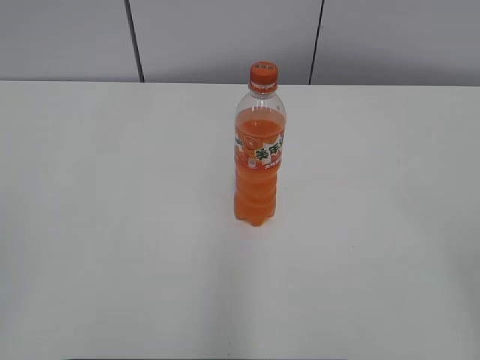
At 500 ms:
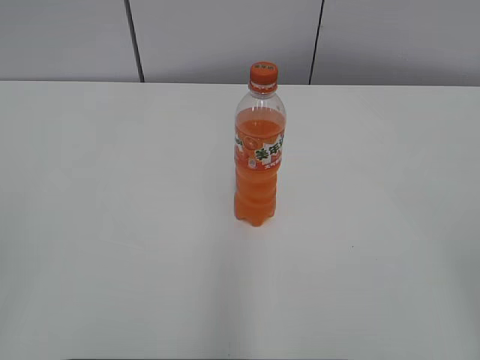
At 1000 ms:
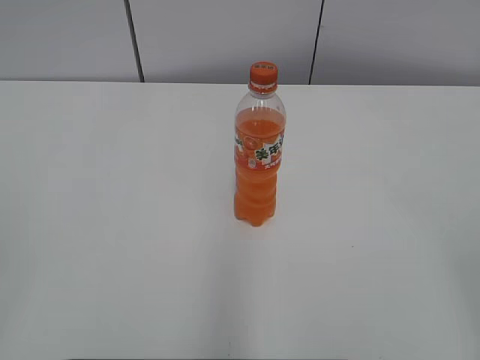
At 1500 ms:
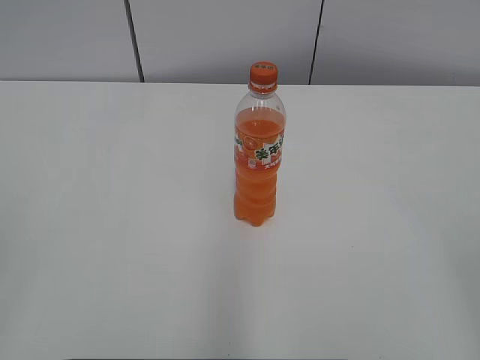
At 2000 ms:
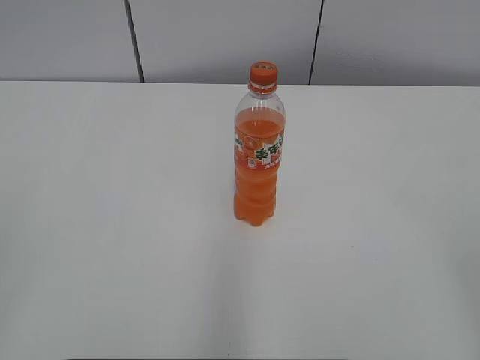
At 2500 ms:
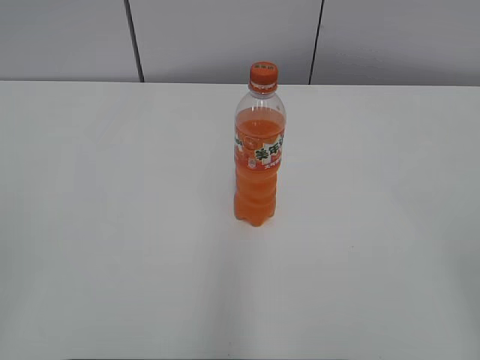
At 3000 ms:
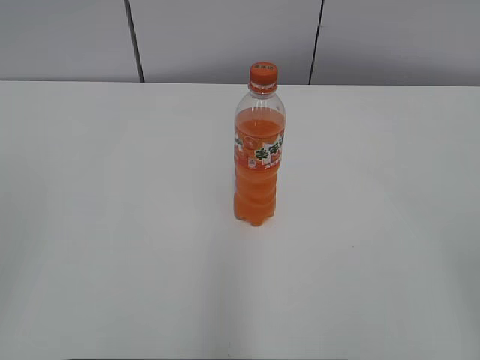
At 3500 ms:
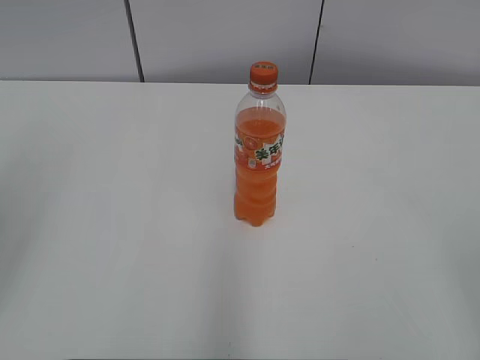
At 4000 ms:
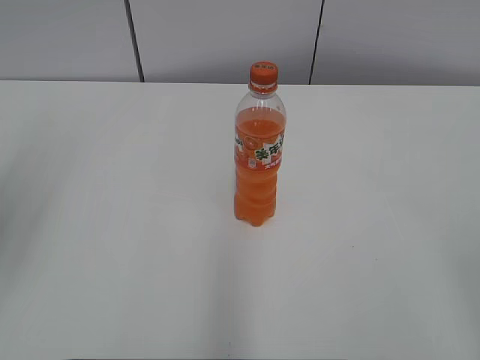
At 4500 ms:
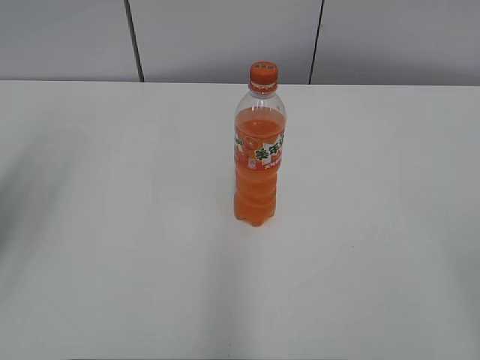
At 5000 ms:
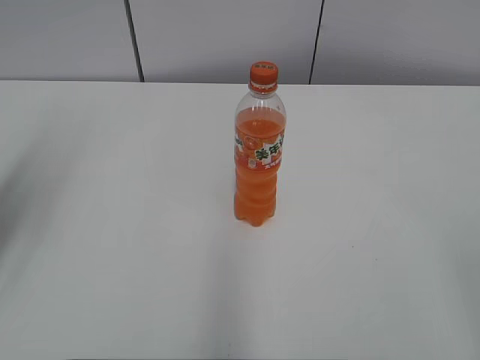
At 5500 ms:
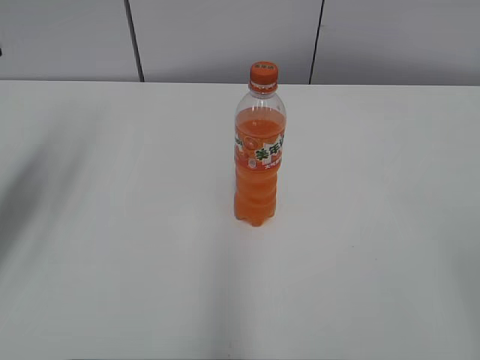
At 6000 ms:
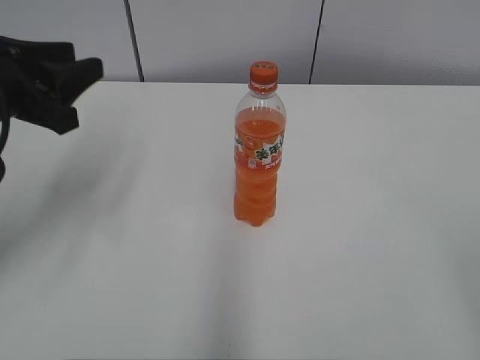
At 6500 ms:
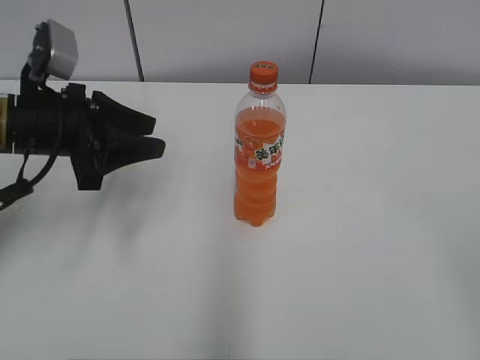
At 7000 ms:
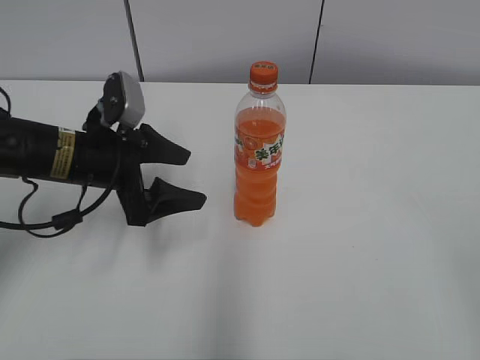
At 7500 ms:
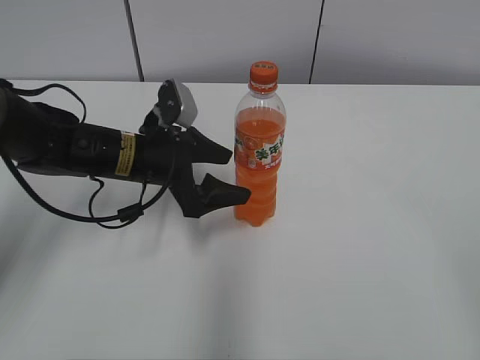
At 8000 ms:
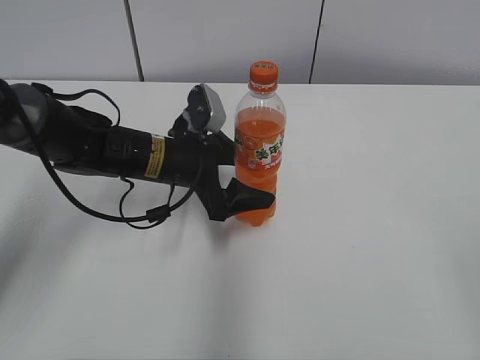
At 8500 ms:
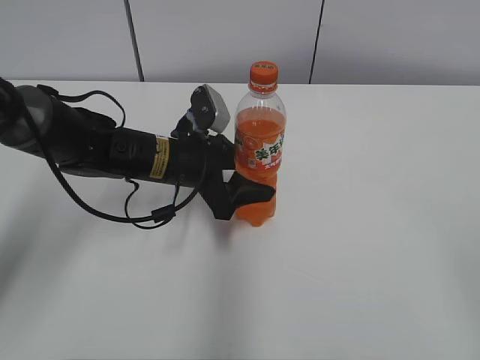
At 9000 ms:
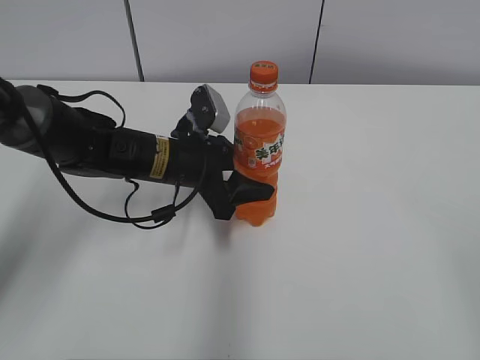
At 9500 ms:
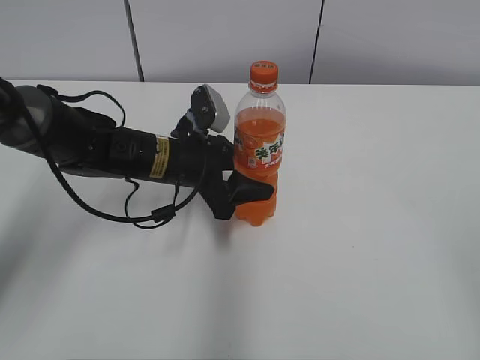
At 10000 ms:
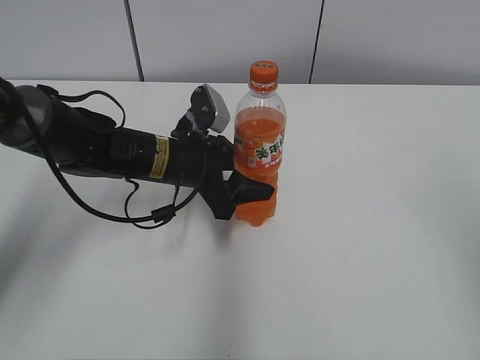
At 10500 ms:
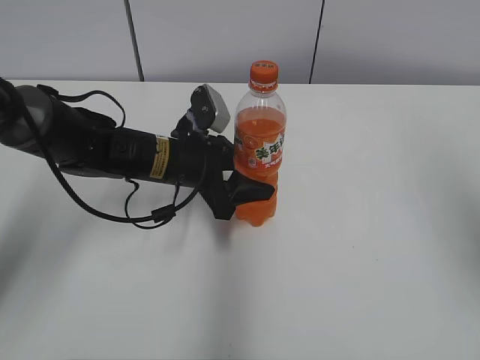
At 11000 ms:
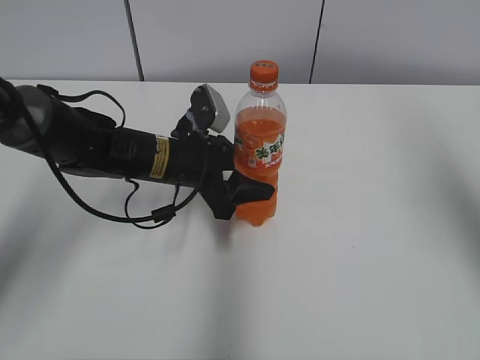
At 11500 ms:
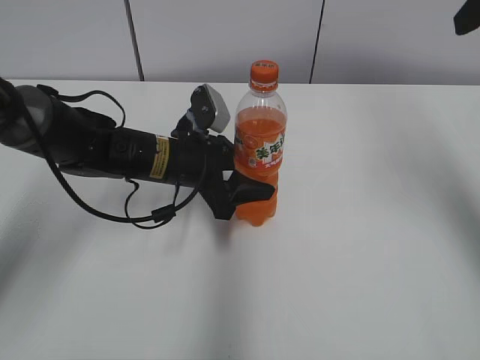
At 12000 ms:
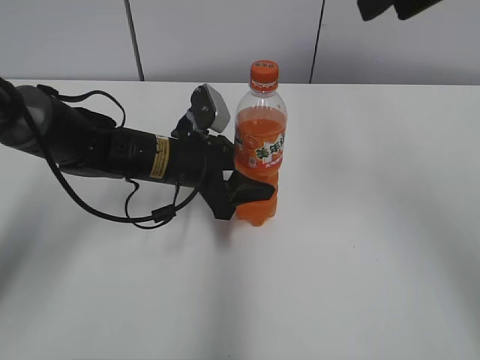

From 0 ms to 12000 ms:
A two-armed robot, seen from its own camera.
Step, from 0 ms to 8500 ms: Grab the Mirinda with the left hand.
From 4000 ms to 6000 ms: The left gripper is displaced forward and downward by roughly 15 cm.
From 6000 ms to 8000 ms: The left gripper travels to the right, downward and forward by approximately 20 cm, and opens.
From 8000 ms to 10000 ms: The left gripper closes its fingers, while the right gripper is displaced forward and upward by some 10 cm, and closes its fingers.
From 10000 ms to 12000 ms: The right gripper travels forward and to the left by approximately 25 cm.

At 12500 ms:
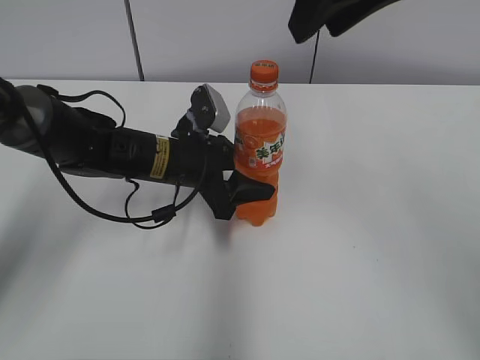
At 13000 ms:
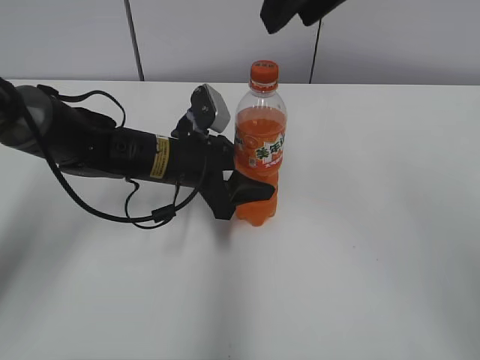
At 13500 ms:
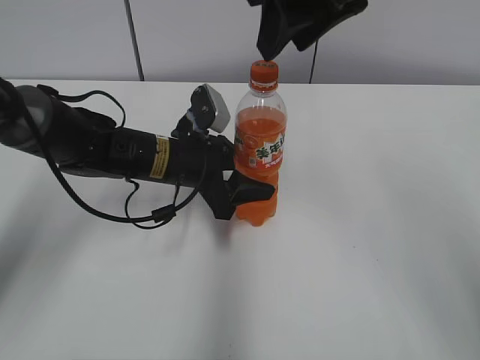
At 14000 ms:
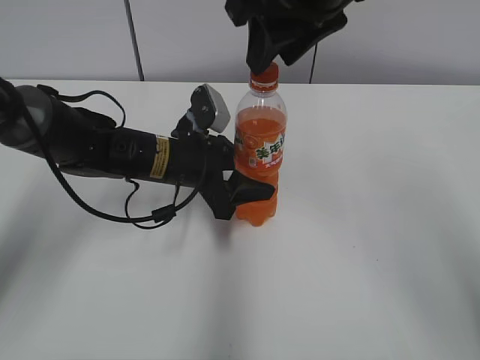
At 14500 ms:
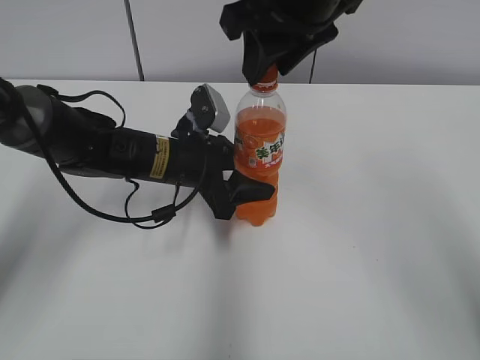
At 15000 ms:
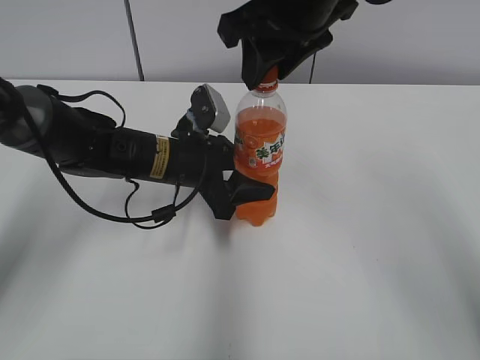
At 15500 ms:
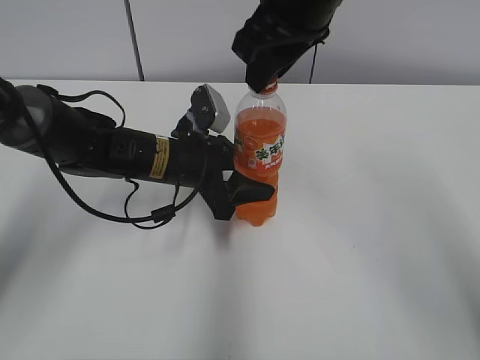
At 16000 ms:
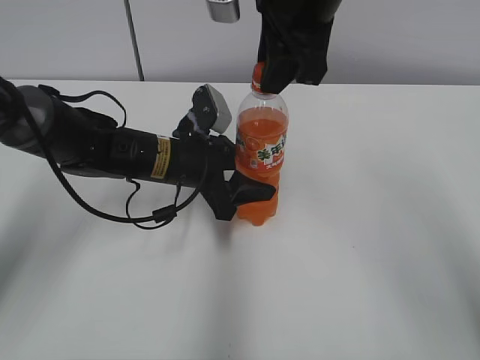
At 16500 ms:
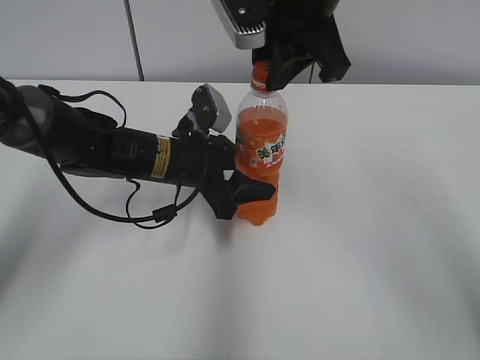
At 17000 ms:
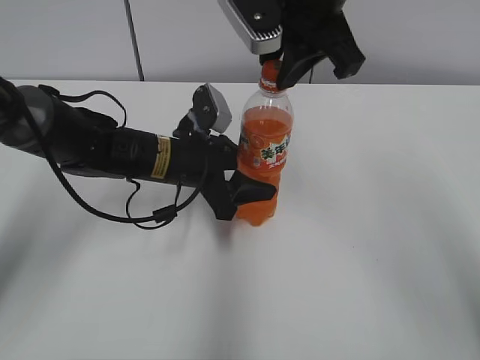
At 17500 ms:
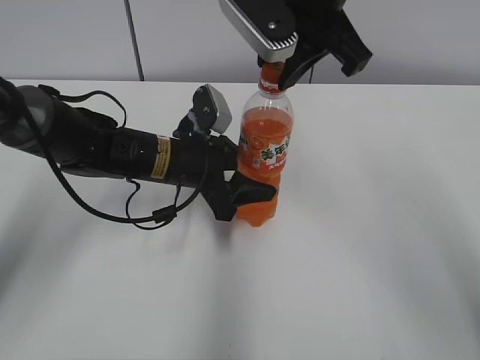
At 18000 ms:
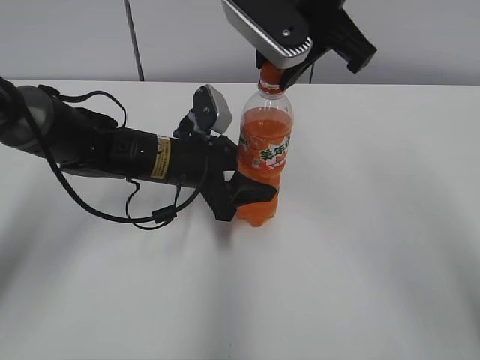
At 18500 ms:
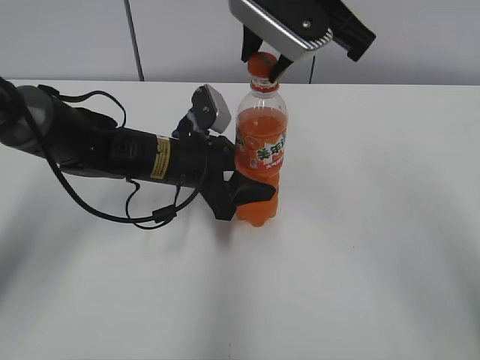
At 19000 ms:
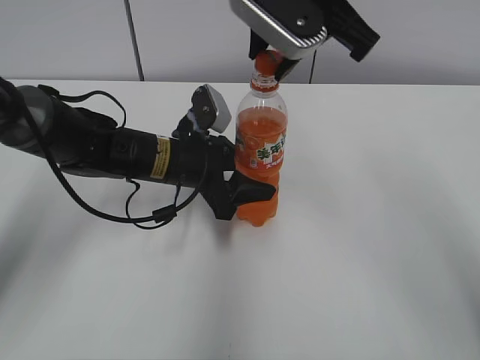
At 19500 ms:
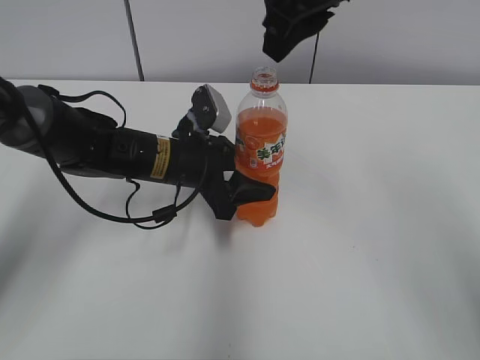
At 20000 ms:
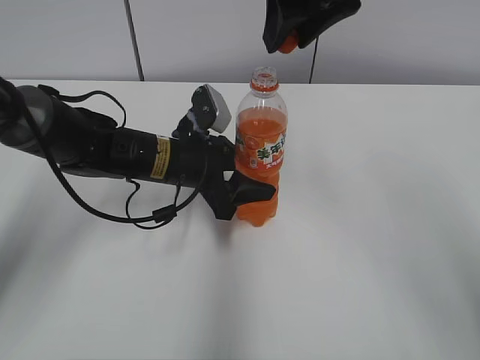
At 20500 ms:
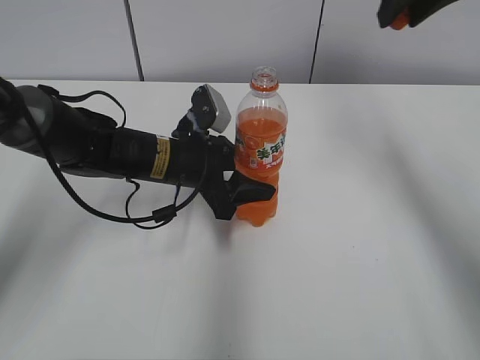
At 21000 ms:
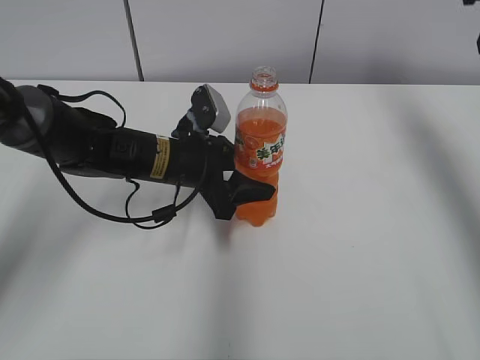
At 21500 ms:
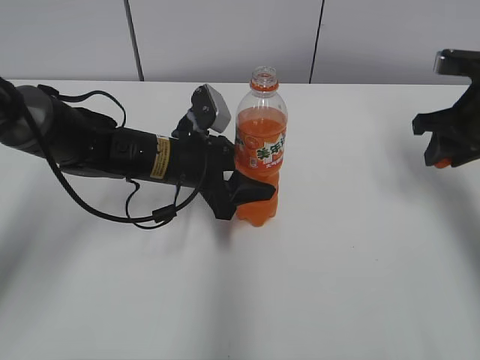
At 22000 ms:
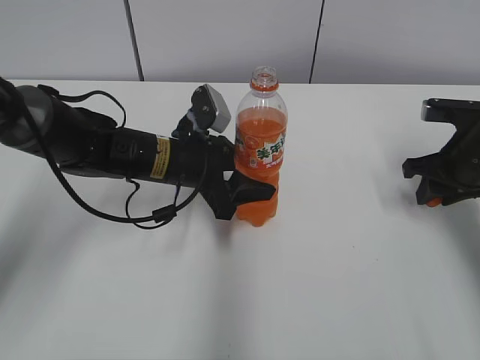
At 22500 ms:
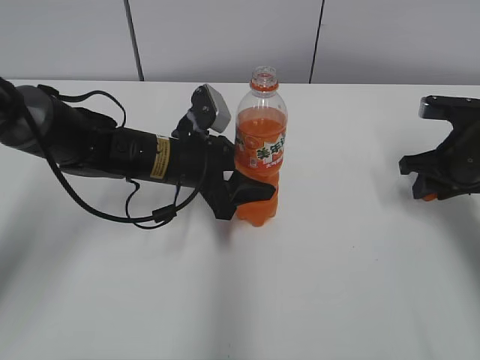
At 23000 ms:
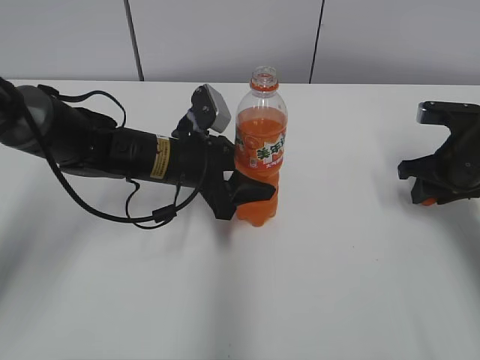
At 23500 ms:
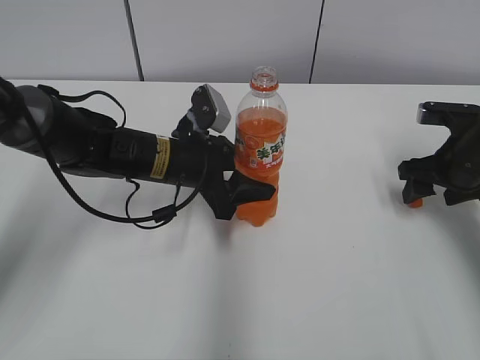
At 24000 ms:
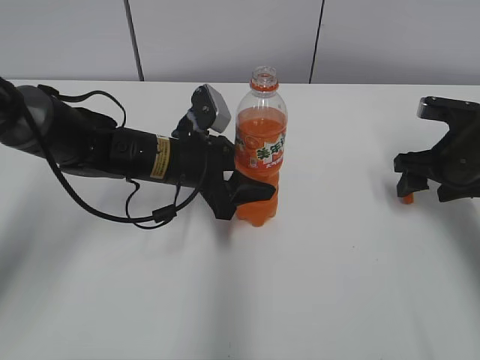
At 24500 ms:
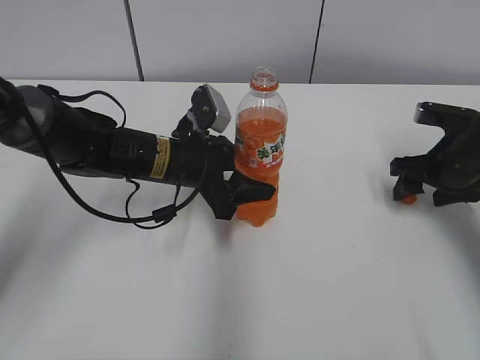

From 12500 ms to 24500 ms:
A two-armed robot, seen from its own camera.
From 12500 ms to 14500 ms: The right gripper moves downward, approximately 5 cm.
From 18500 ms to 20500 ms: The right gripper shifts approximately 10 cm to the right.
From 20500 ms to 22500 ms: The right gripper is displaced downward and to the right by approximately 25 cm.
From 22500 ms to 24500 ms: The right gripper opens up.

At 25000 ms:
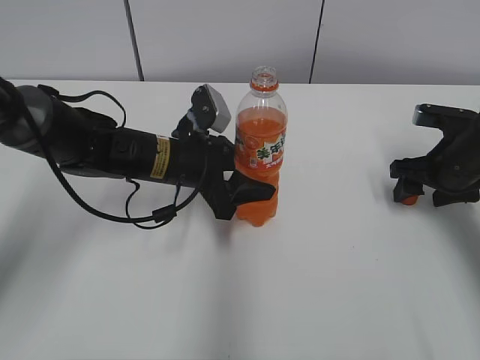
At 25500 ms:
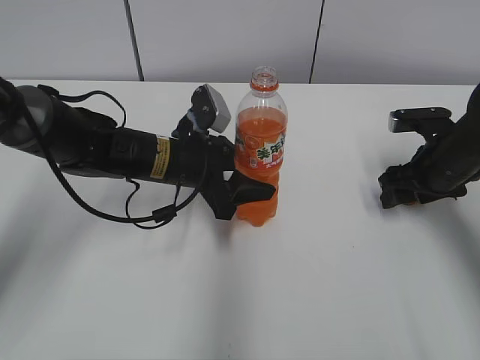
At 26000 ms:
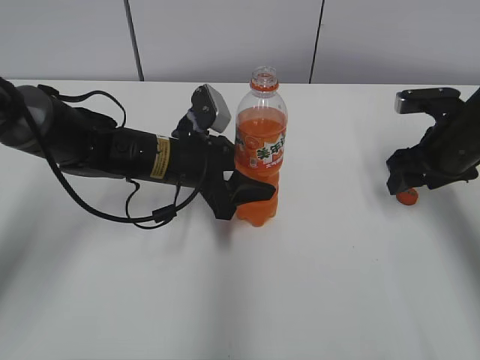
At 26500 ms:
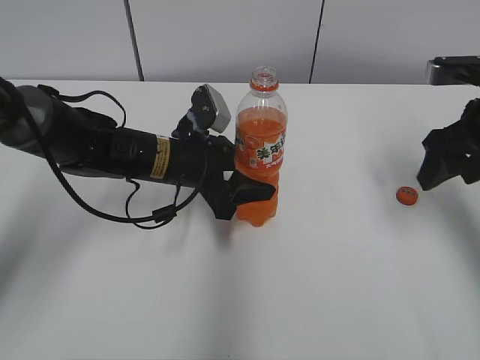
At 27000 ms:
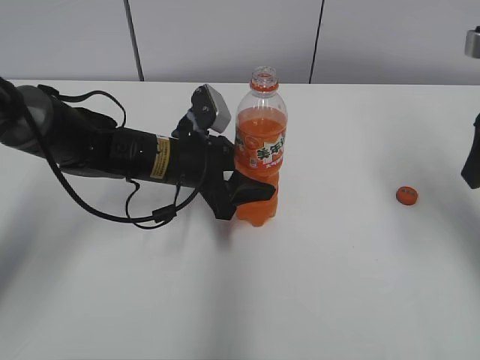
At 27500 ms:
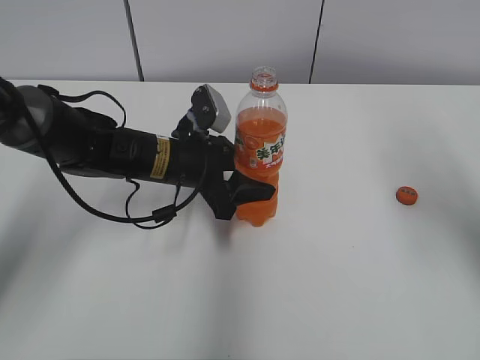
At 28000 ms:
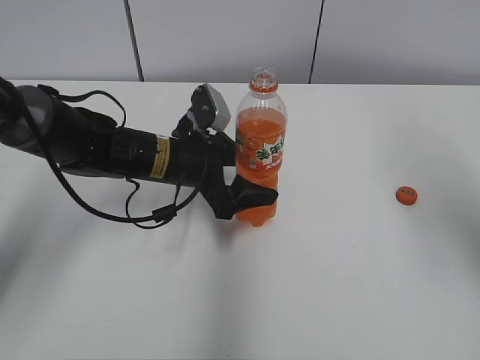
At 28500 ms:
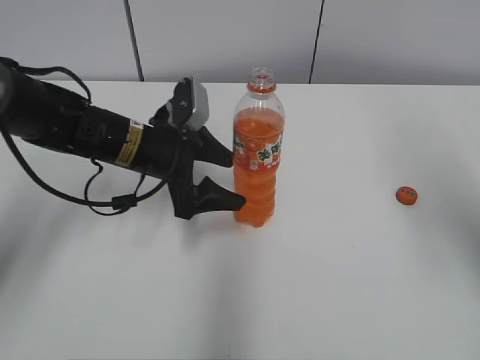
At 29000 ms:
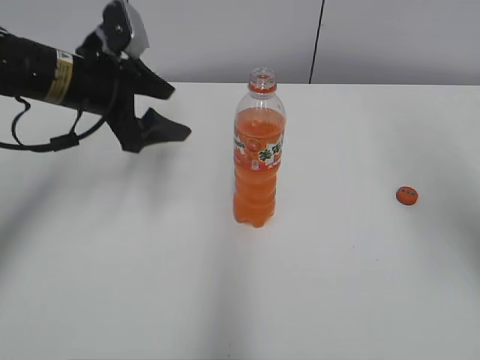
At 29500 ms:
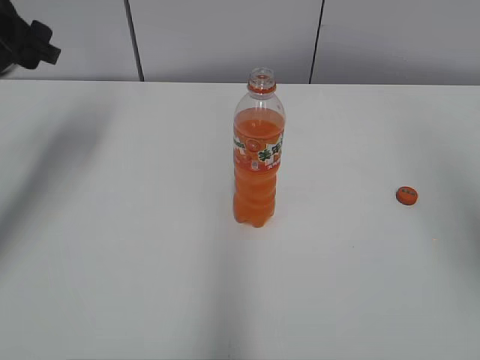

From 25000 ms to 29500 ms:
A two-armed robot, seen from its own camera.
From 25000 ms to 27000 ms: The right gripper shifts approximately 20 cm upward and backward.
From 27000 ms to 29500 ms: The left gripper travels to the left and upward by some 25 cm, and opens up. The right gripper goes some 20 cm upward and backward.
